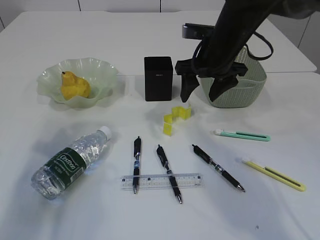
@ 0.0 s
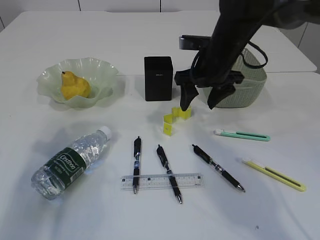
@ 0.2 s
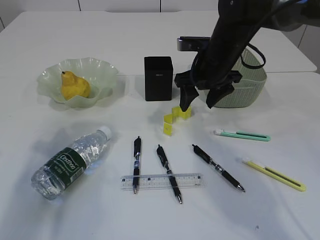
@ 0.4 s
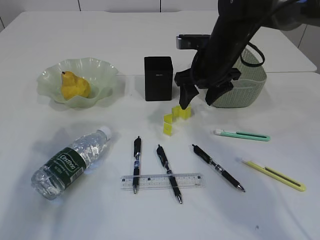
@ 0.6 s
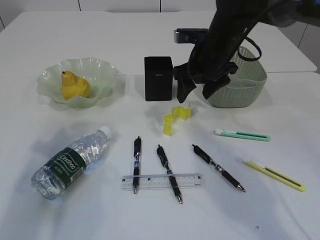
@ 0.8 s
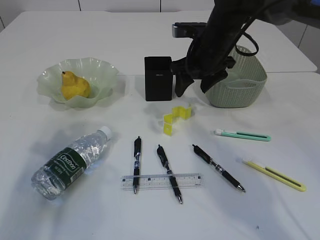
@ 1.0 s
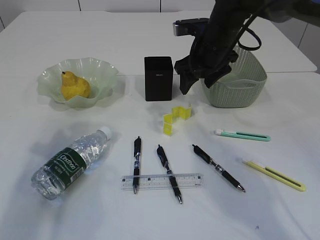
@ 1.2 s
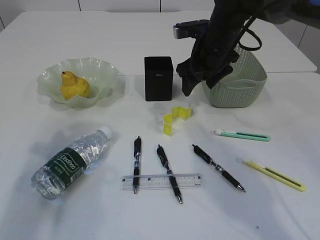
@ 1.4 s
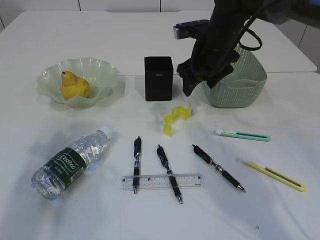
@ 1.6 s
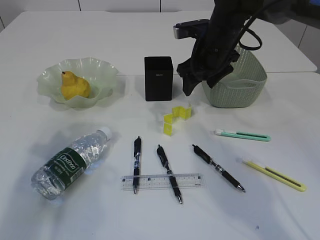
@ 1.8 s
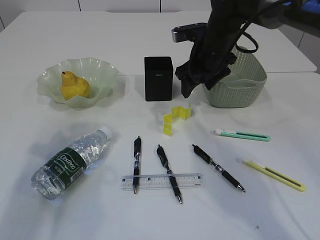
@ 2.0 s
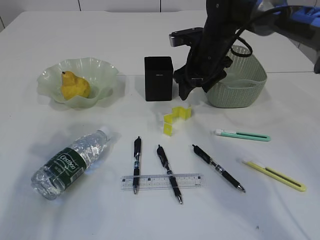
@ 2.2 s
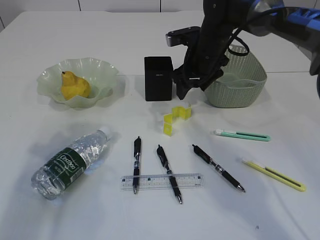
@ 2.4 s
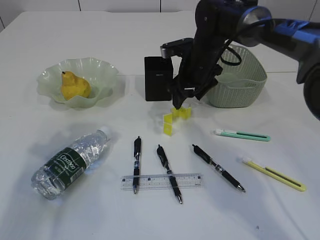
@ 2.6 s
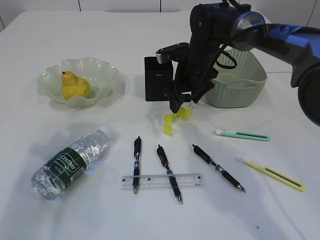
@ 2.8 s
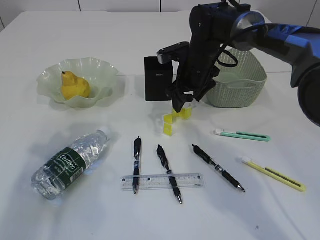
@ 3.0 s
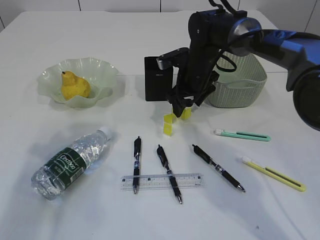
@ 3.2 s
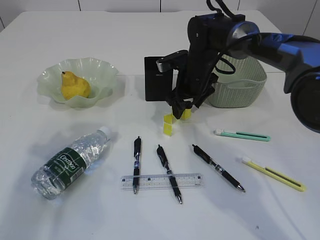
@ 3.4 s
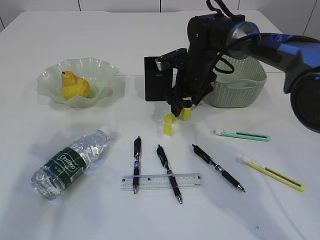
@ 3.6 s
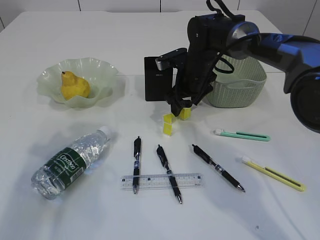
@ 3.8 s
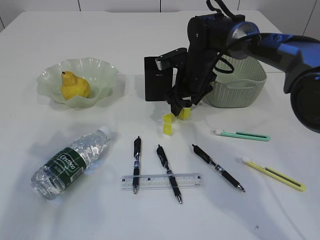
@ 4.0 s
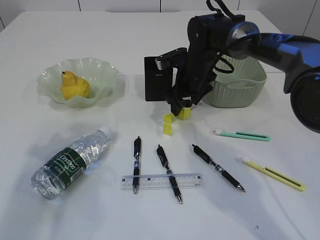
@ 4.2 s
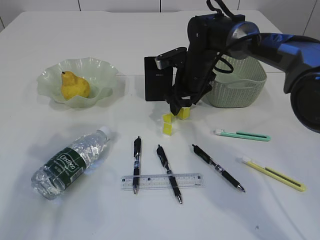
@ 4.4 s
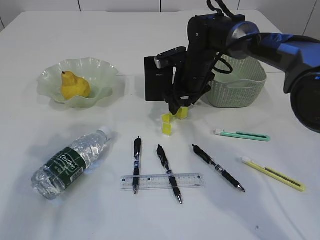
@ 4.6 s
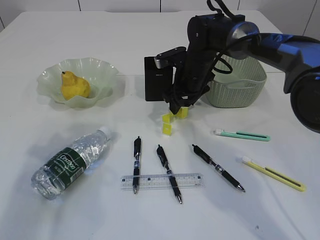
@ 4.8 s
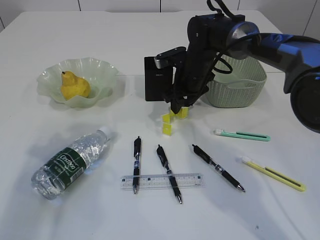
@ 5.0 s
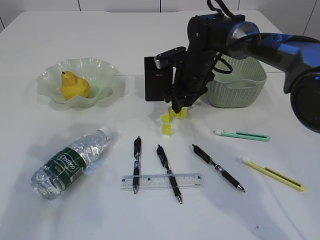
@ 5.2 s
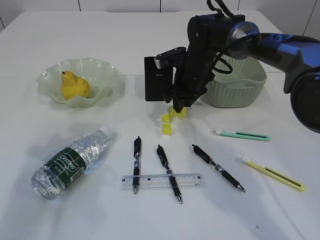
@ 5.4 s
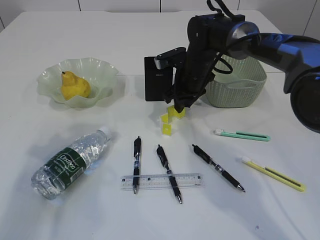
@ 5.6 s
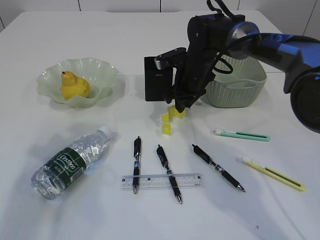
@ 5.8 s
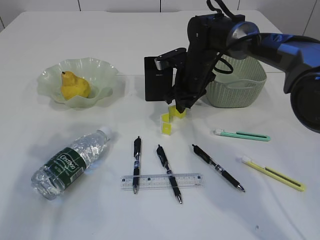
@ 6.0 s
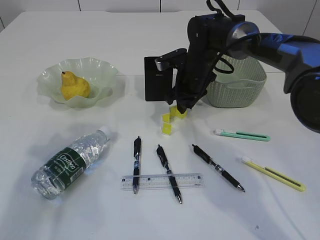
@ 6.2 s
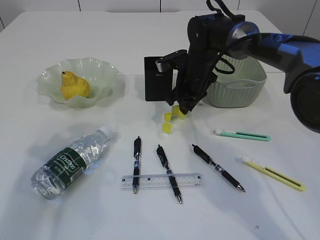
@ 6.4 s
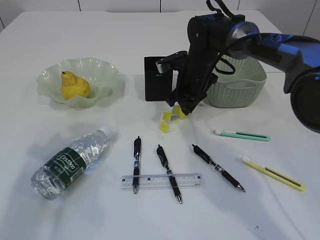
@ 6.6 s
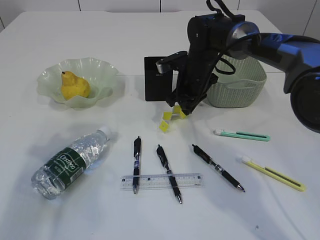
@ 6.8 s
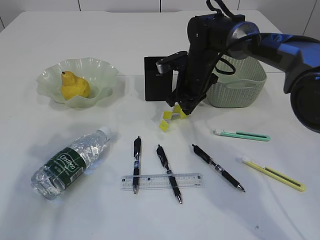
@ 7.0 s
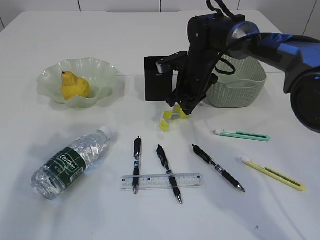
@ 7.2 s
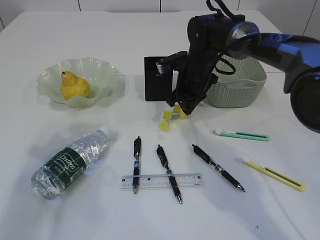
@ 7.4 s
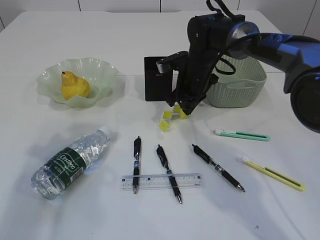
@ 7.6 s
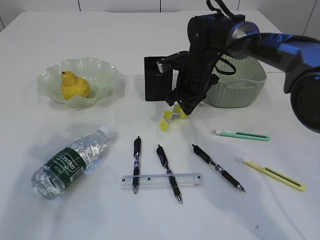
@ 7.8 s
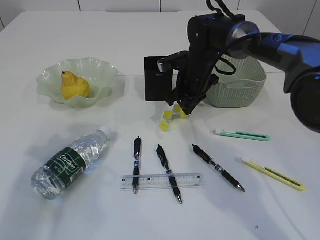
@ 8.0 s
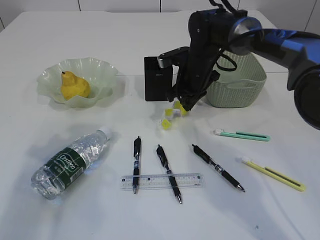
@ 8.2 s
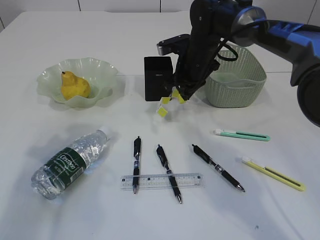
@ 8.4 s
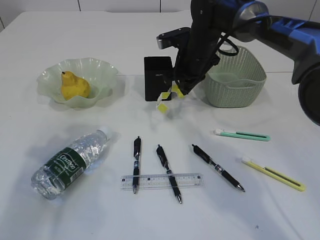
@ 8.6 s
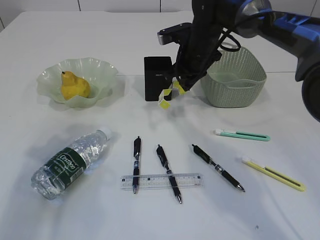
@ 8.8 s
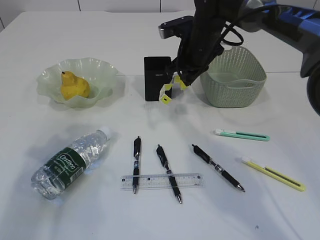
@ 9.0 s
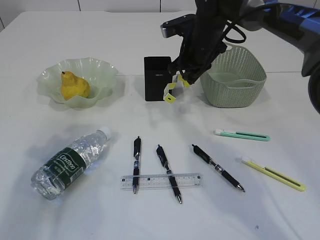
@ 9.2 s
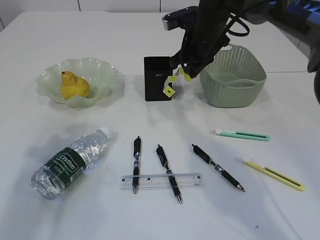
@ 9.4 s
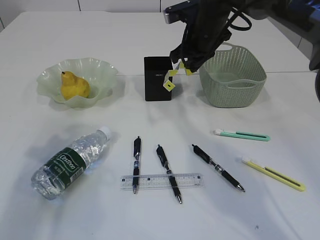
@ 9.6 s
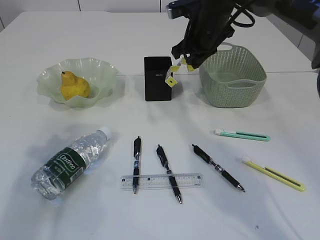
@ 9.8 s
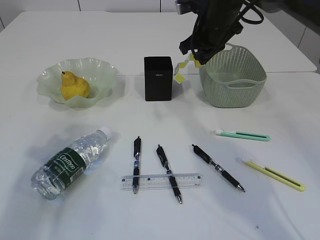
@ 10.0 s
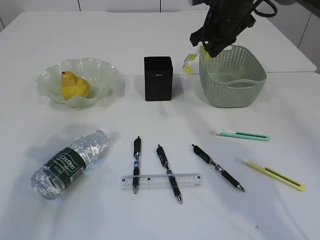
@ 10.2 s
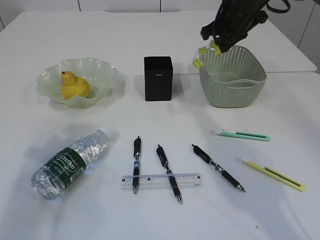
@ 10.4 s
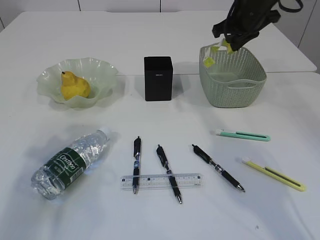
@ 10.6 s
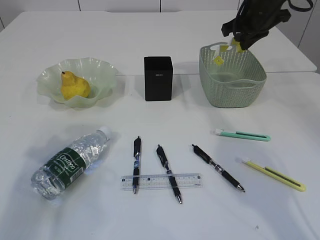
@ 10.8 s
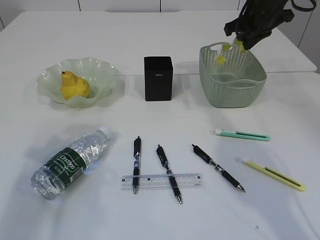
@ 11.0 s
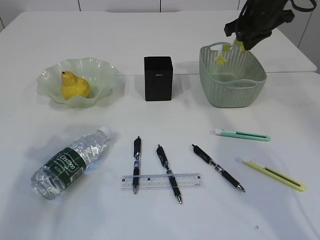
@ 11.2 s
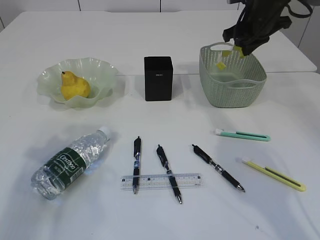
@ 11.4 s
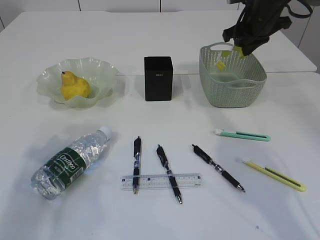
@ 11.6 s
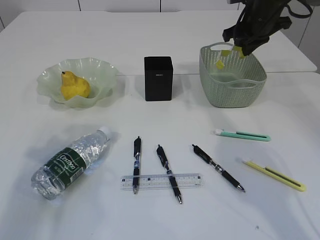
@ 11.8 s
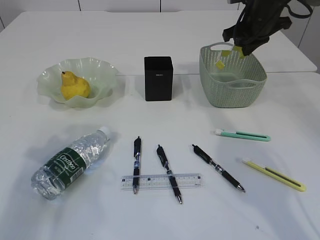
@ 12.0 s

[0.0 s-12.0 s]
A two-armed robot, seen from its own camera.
Step, 0.0 to 8.6 s: Pick up the waste paper.
0.0 to 1.6 s: The grippers make only small movements.
1.6 to 3.0 s: The right gripper heads downward, covering some 5 cm.
3.0 to 4.4 s: The grippers stay close to where they were, moving slightly.
6.0 to 7.6 s: The right gripper closes up.
7.6 to 9.0 s: The right gripper goes some 5 cm upward.
9.0 to 10.4 s: The right gripper shifts roughly 10 cm to the right and upward.
10.4 to 12.0 s: The right gripper changes place by some 5 cm.

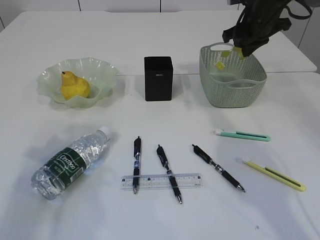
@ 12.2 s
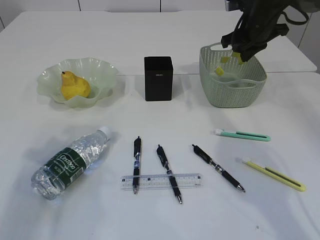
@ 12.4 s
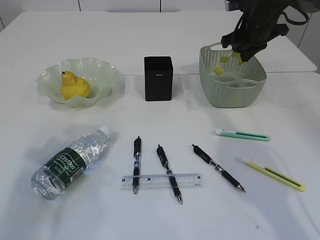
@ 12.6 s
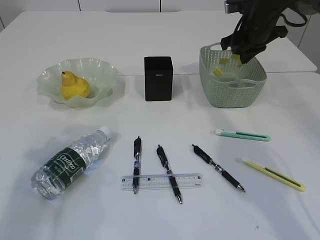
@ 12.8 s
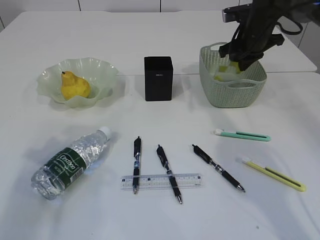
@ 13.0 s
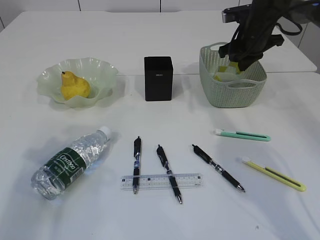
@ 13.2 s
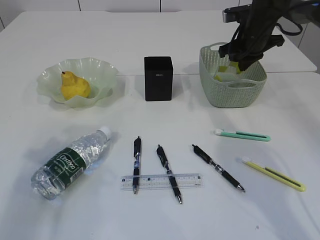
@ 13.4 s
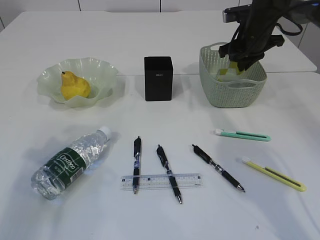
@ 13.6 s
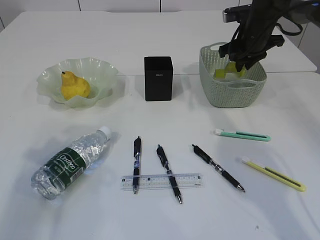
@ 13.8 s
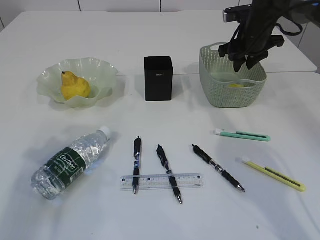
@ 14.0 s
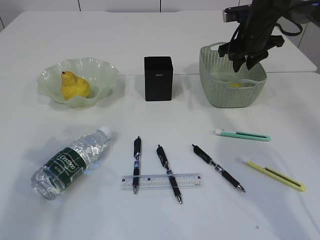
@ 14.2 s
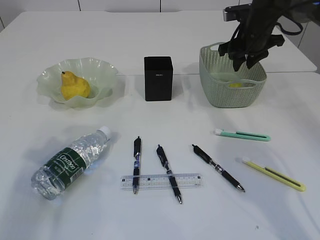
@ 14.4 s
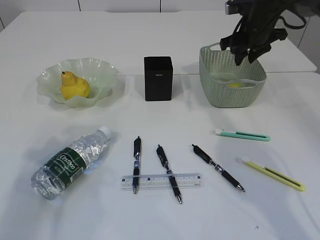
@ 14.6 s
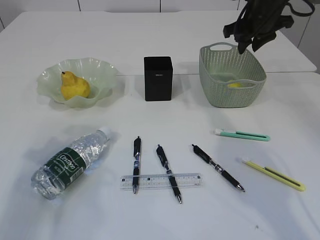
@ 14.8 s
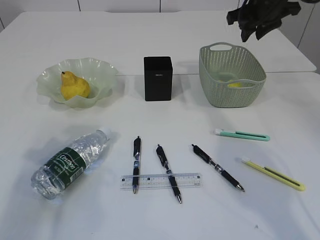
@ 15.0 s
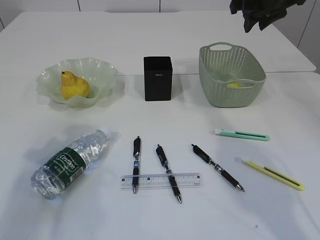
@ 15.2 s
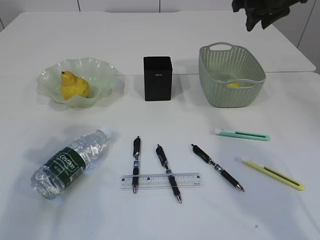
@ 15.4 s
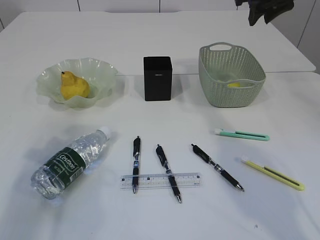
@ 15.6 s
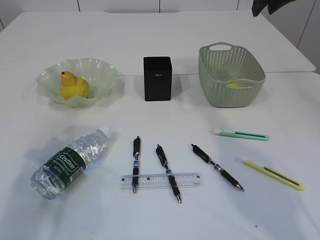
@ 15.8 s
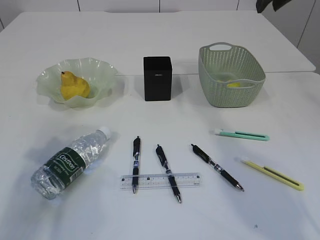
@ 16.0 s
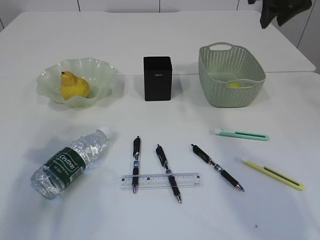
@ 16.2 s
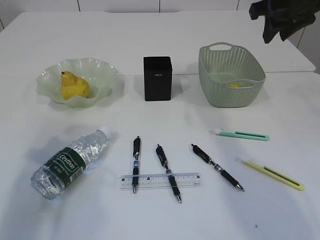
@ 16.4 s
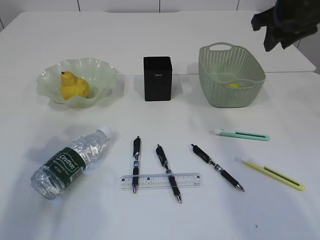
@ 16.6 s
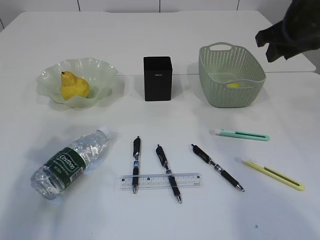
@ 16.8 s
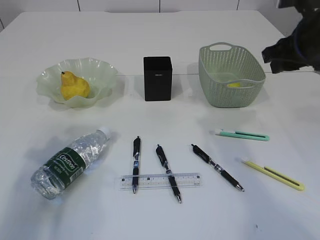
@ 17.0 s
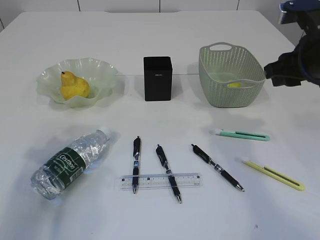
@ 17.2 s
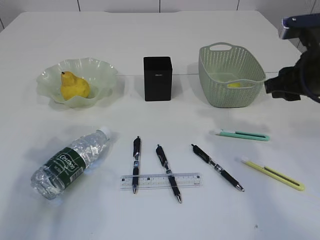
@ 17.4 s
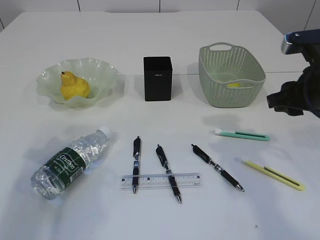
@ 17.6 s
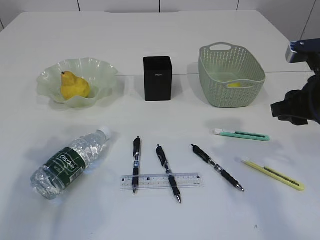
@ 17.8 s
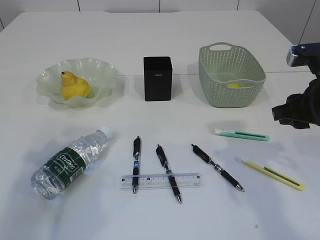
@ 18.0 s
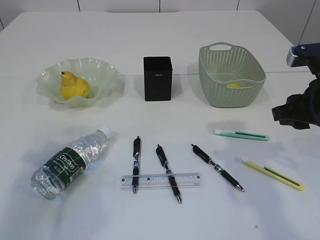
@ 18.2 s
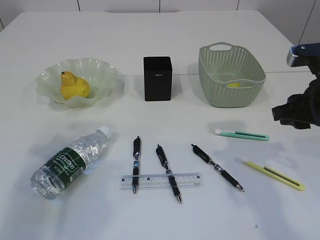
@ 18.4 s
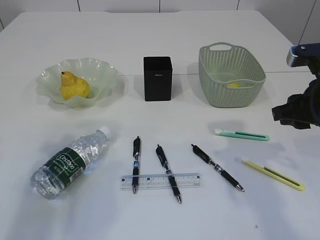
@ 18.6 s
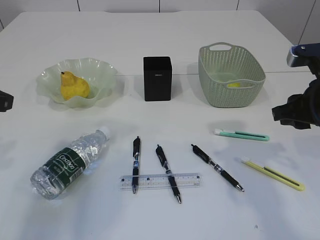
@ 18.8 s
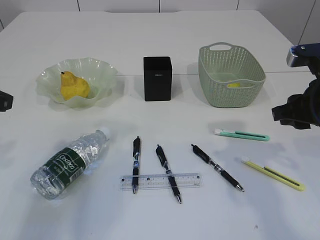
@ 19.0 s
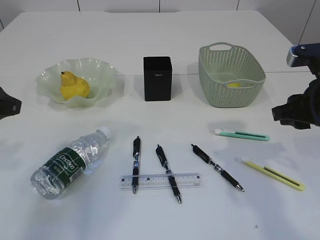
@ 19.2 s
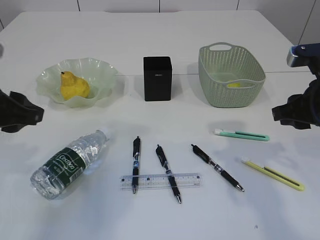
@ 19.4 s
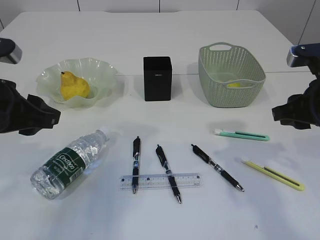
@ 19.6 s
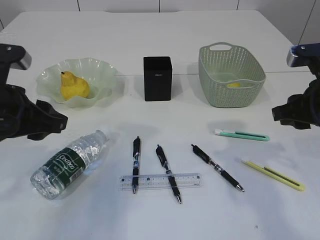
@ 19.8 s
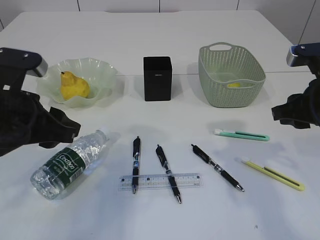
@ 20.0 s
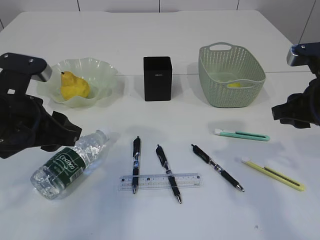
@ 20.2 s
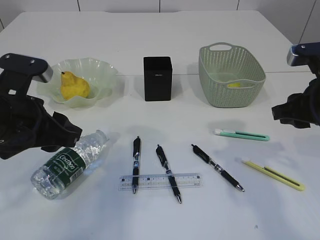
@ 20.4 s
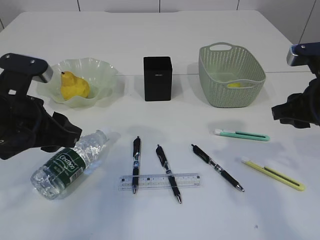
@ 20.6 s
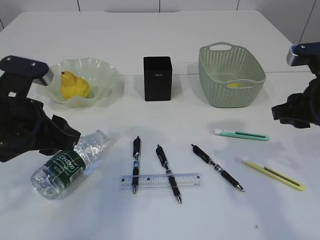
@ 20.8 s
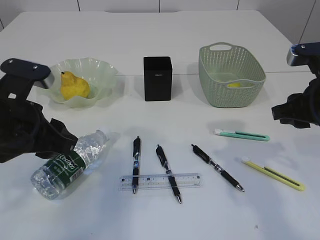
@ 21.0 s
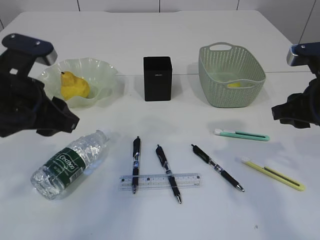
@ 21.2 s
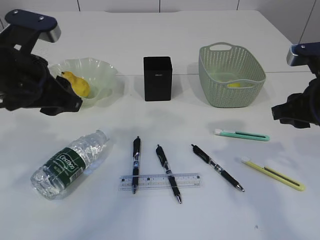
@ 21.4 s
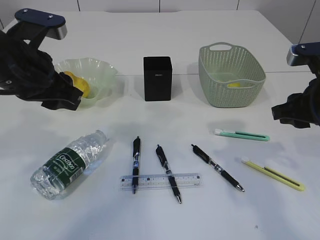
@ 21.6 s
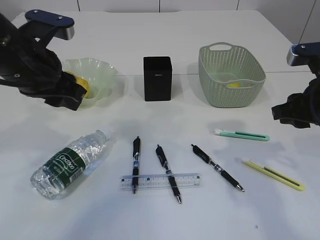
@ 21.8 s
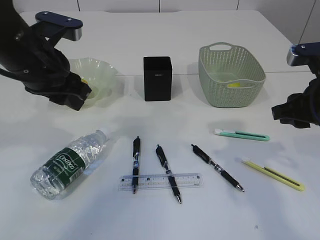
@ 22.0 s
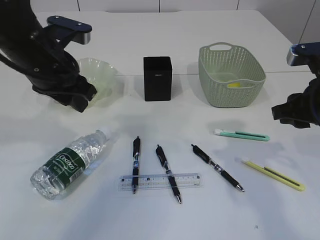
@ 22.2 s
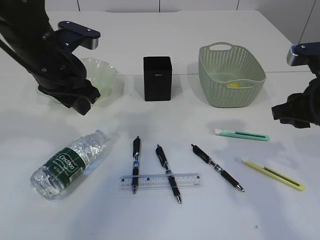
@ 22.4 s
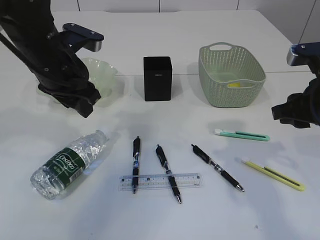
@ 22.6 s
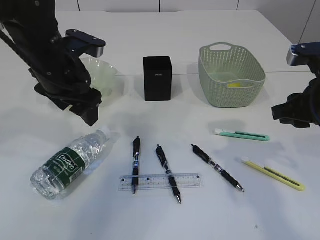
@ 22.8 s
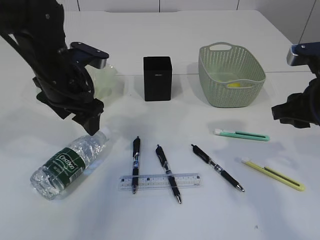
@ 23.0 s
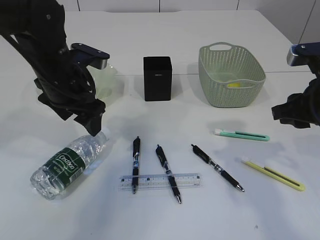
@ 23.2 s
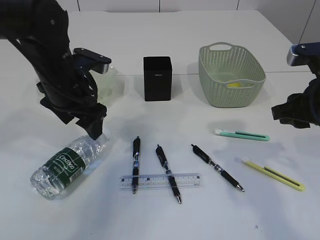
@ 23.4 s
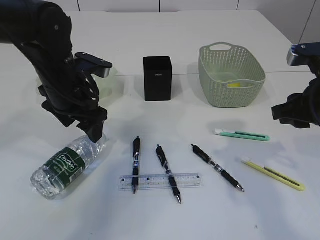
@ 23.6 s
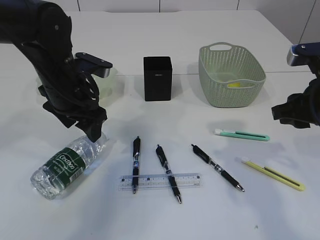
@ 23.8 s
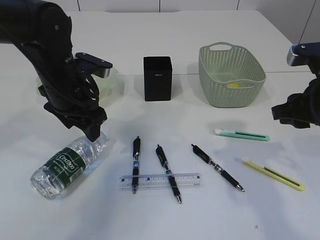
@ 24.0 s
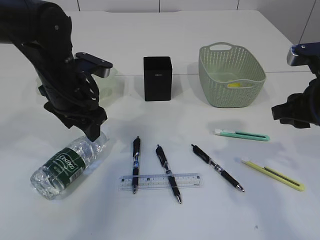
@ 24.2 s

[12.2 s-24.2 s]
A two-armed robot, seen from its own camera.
Step, 12.2 to 15.4 s: Place the waste paper in the basket.
12.2 to 13.8 s: The grippers make only small movements.
13.8 to 15.2 s: The right gripper heads upward, covering some 10 cm.
15.2 to 16.6 s: The right gripper is displaced backward by about 10 cm.
16.6 to 18.2 s: The right gripper is displaced backward and downward by approximately 15 cm.
18.2 to 19.8 s: The left gripper heads to the right, covering roughly 10 cm.
19.8 to 21.2 s: The grippers make only small movements.
21.2 to 22.6 s: The left gripper moves forward, about 10 cm.
22.6 to 24.2 s: The left gripper opens its fingers.
